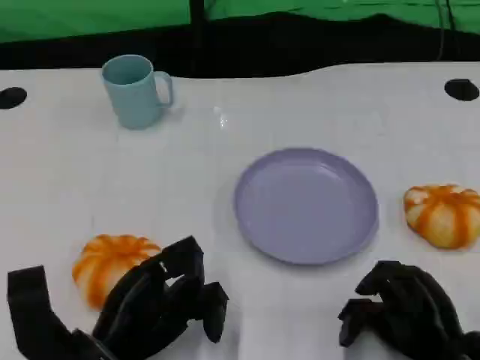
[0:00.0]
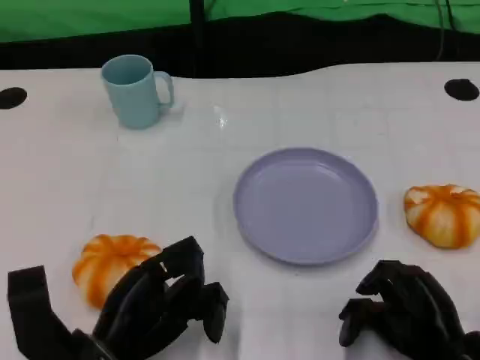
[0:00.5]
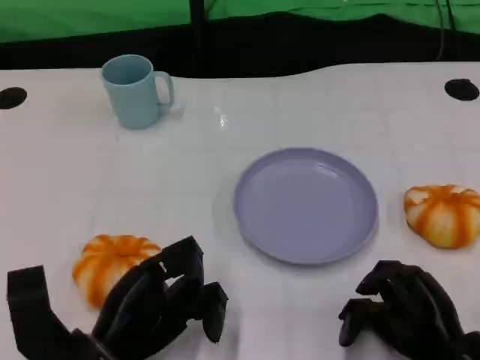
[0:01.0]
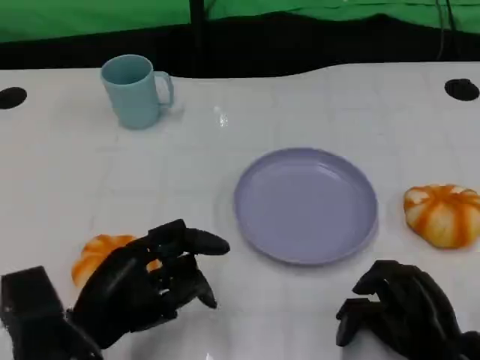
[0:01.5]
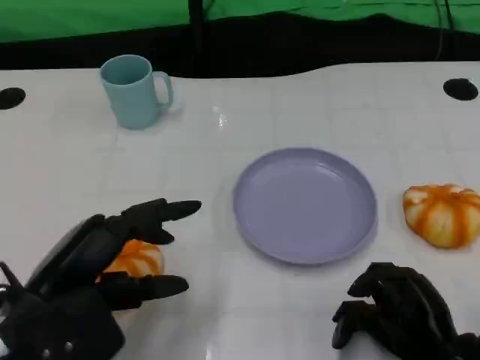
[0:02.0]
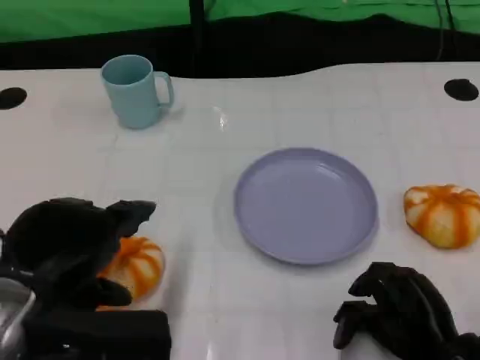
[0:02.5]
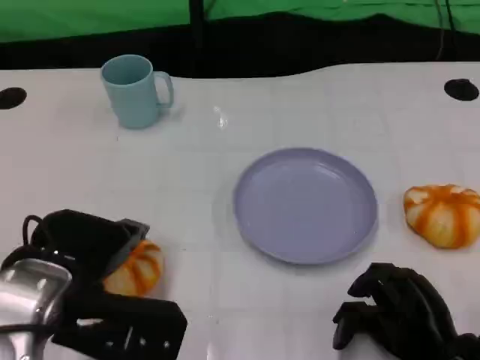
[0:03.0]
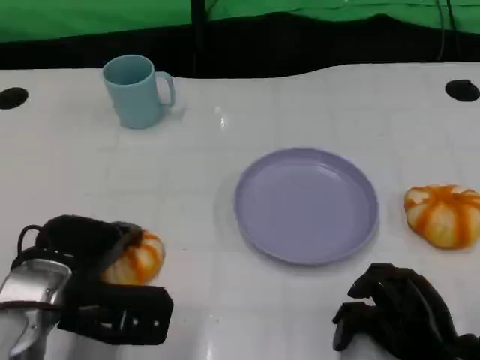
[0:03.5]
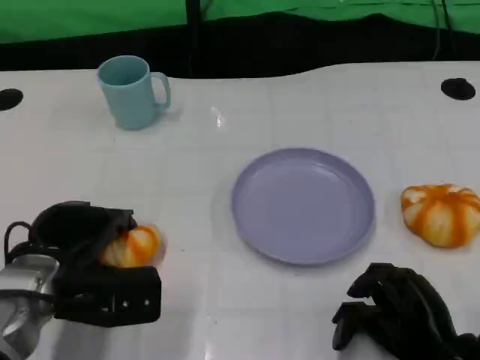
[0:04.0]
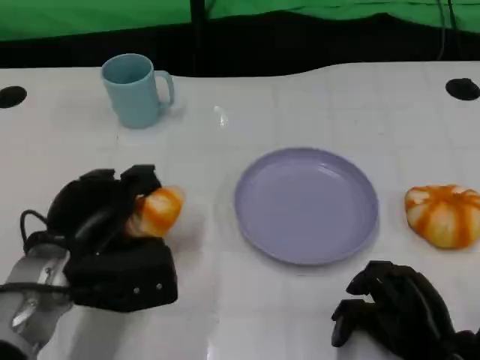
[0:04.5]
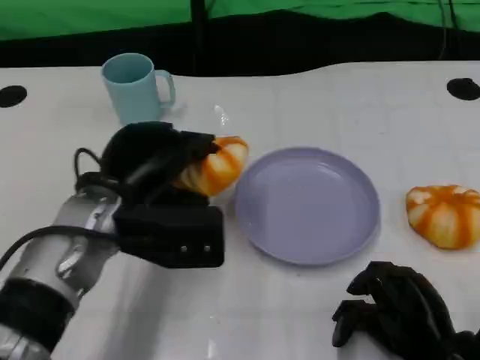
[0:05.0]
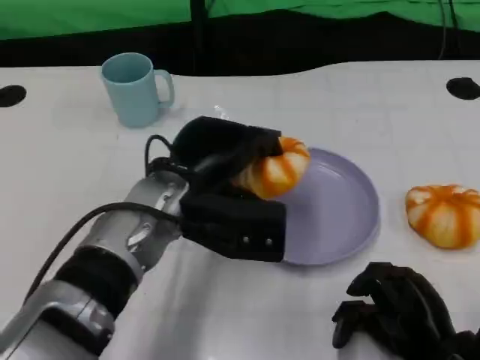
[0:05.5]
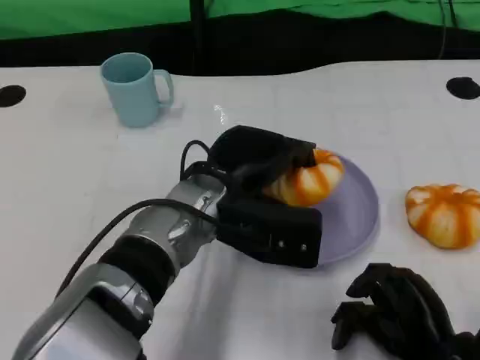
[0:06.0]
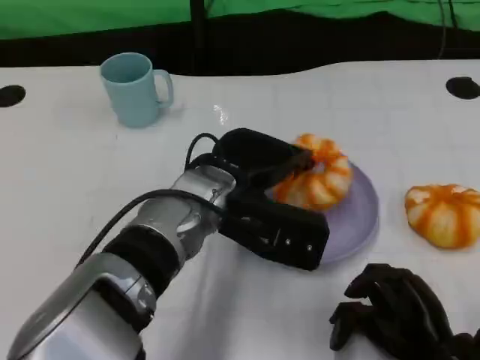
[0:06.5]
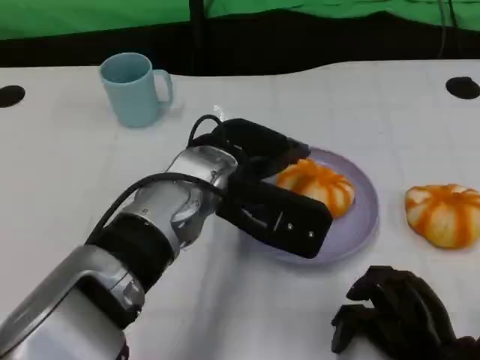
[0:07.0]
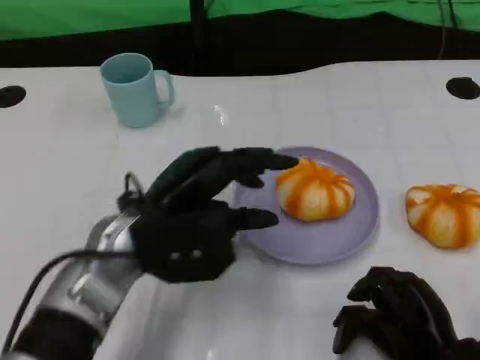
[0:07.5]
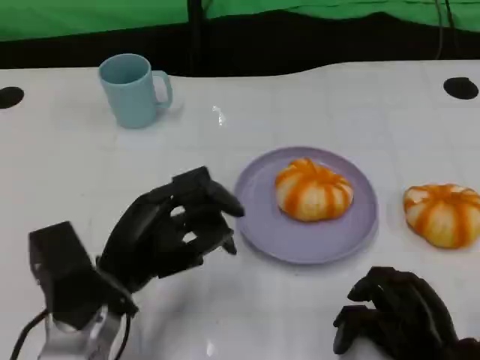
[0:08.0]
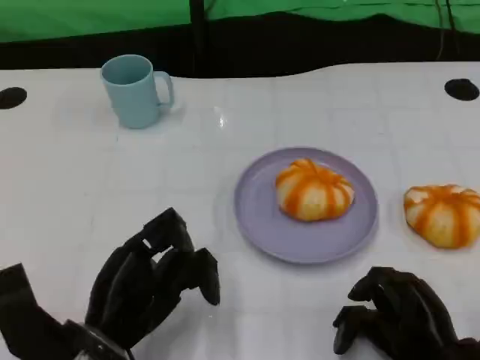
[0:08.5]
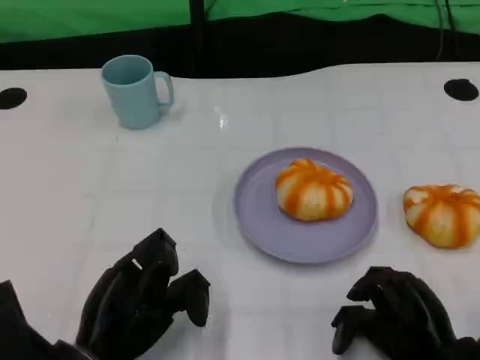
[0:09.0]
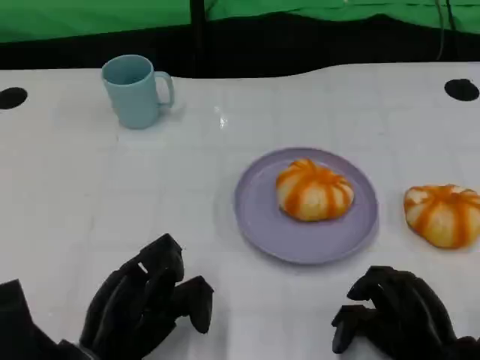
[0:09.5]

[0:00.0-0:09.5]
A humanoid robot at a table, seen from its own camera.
Task of the whole recording: Grasp the bread from the table and place it into the plate.
0.0 to 2.0 s: The left hand moves upward, approximately 10 cm.
2.0 to 4.0 s: The left hand travels forward and downward by about 10 cm.
4.0 to 5.5 s: The left hand is displaced to the right and upward by approximately 15 cm.
5.5 to 7.5 s: The left hand moves roughly 5 cm.
7.5 to 9.5 s: The left hand is displaced backward, downward and to the left by some 15 cm.

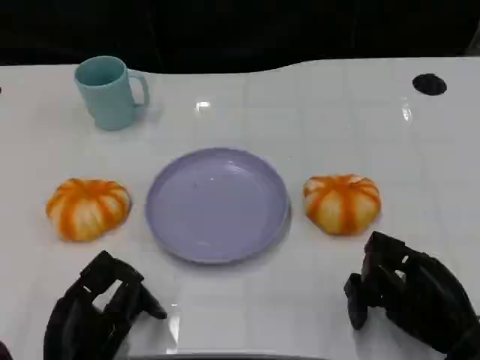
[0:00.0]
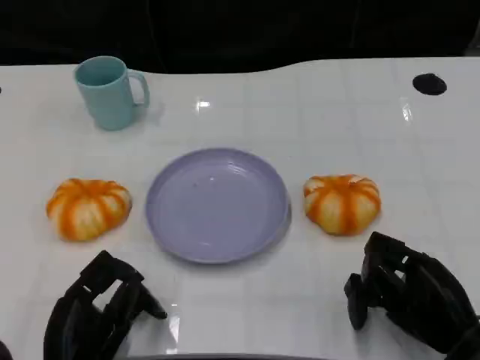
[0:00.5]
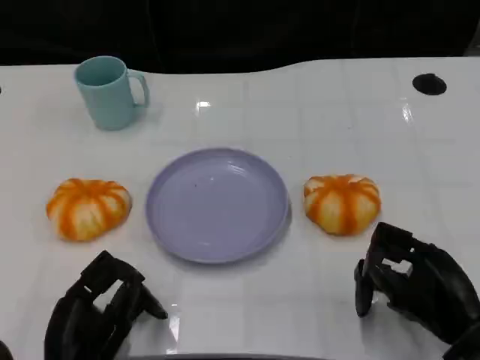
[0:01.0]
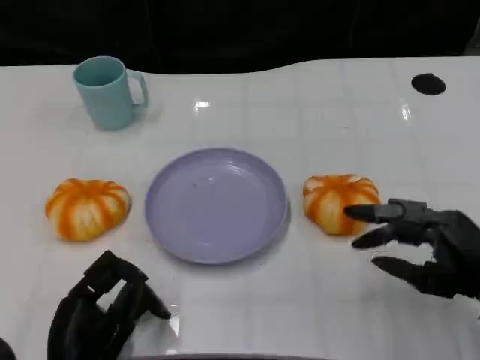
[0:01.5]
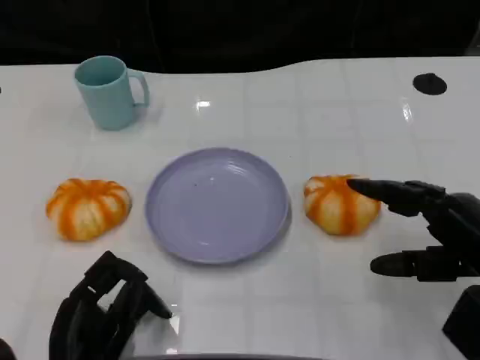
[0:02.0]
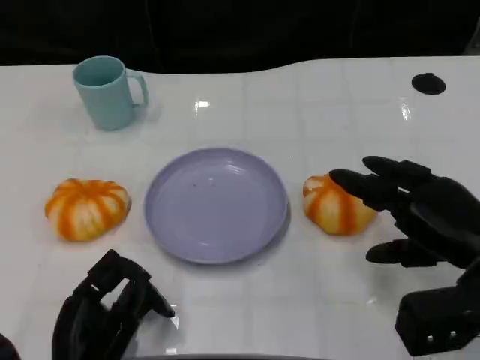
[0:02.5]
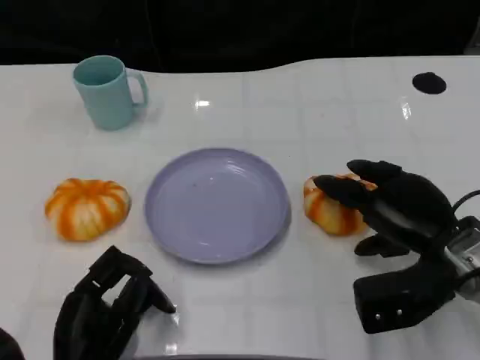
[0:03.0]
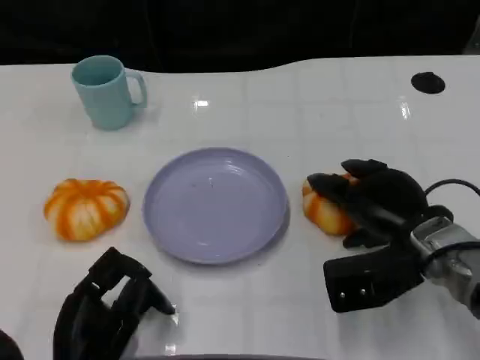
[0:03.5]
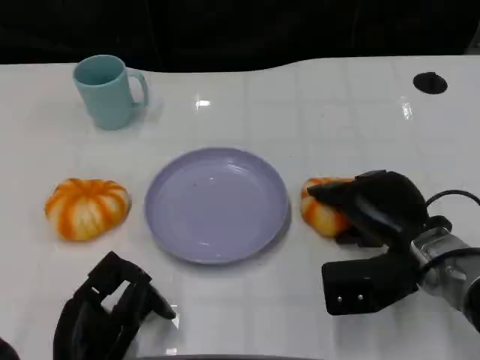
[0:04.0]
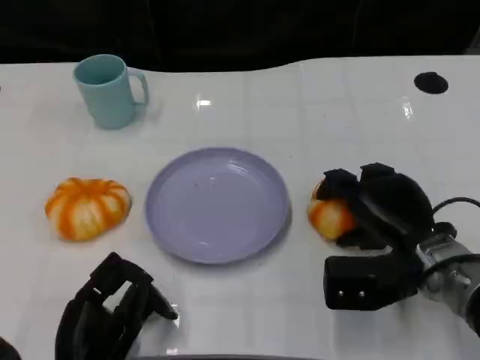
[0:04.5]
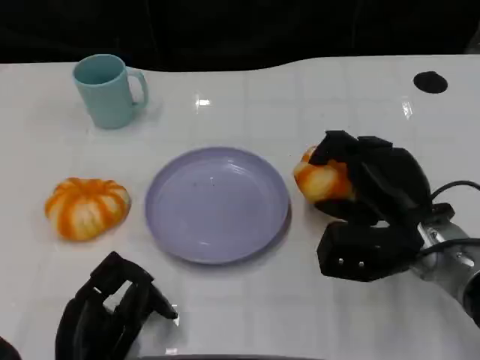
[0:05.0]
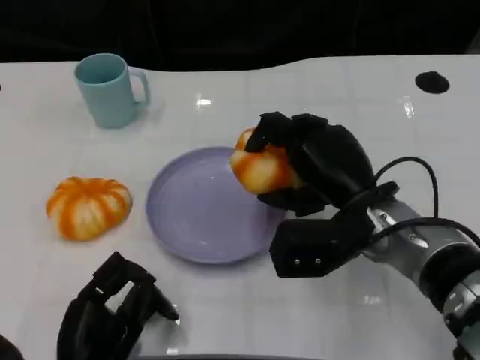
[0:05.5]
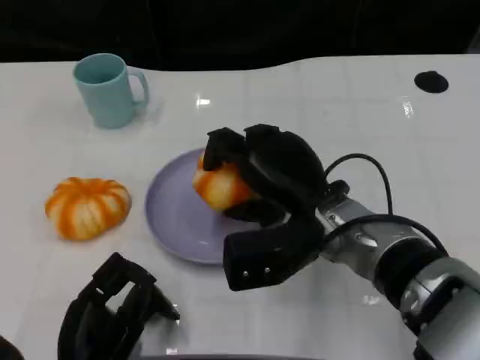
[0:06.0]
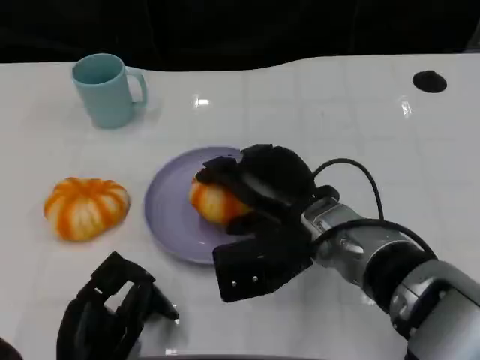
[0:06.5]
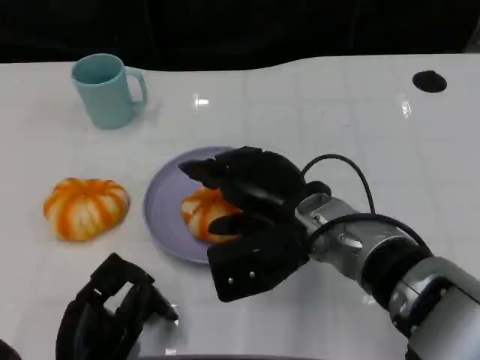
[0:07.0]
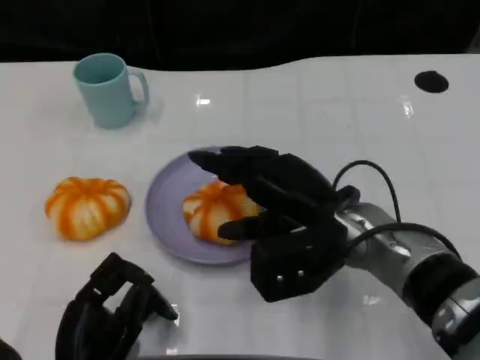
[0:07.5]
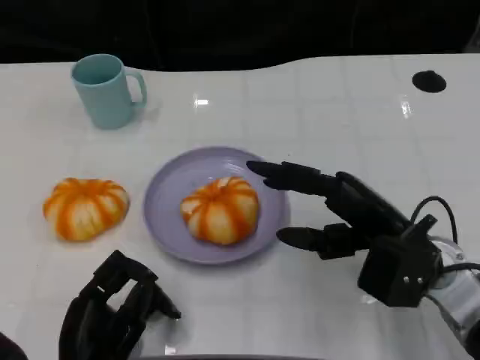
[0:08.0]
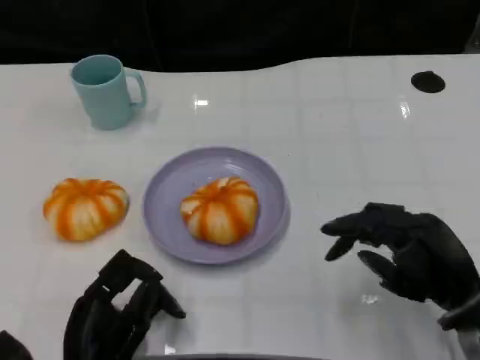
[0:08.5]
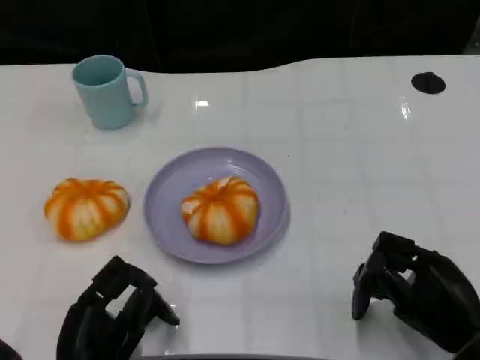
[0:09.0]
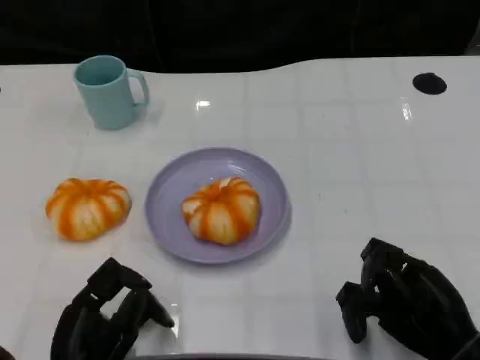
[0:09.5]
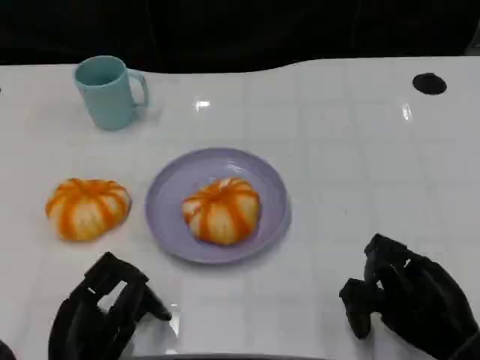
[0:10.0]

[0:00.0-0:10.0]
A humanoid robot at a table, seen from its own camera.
Task of the whole recording: Grasp the bread from the table and place it into the plate.
0.0 to 2.0 s: The right hand goes roughly 5 cm upward.
2.0 to 4.0 s: The right hand travels to the left and forward by some 10 cm.
4.0 to 6.0 s: The right hand moves to the left, about 10 cm.
6.0 to 8.0 s: The right hand travels to the right by about 10 cm.
8.0 to 10.0 s: The right hand moves backward, downward and to the right, some 10 cm.

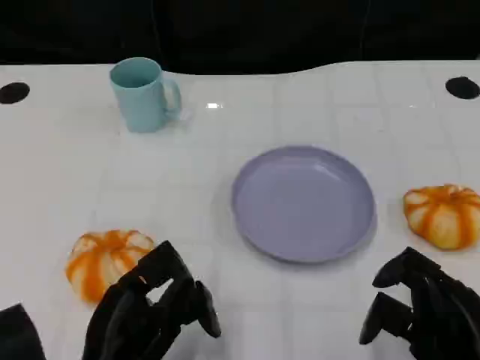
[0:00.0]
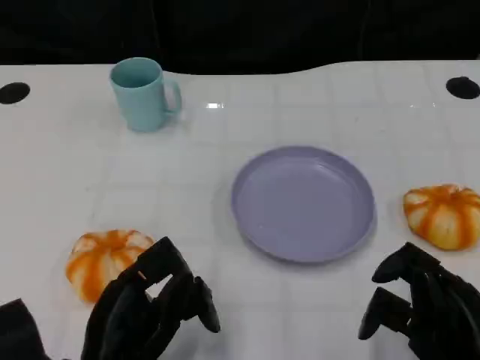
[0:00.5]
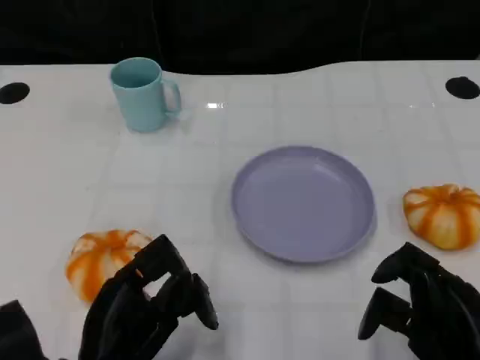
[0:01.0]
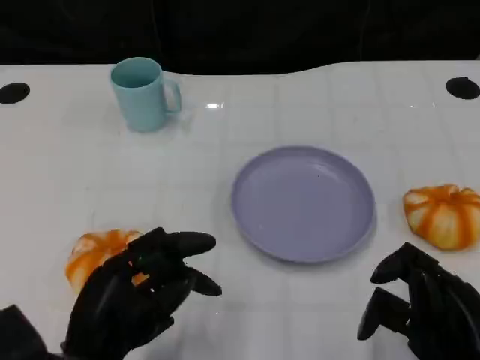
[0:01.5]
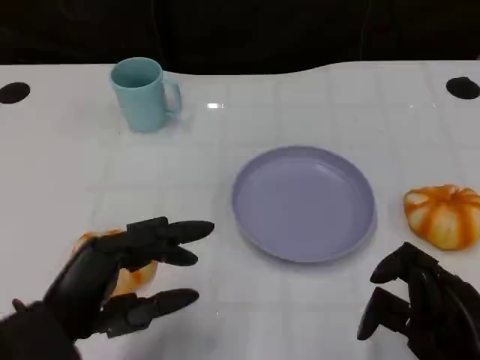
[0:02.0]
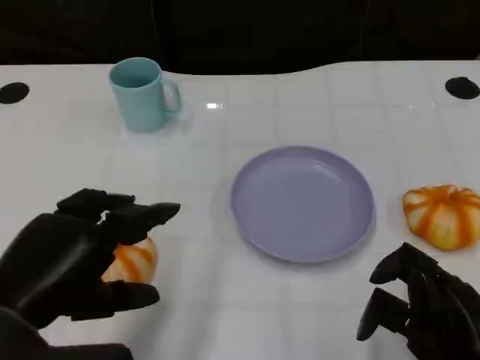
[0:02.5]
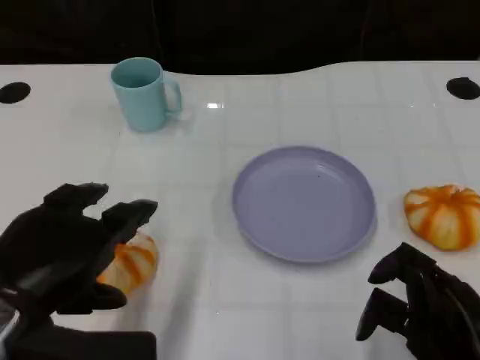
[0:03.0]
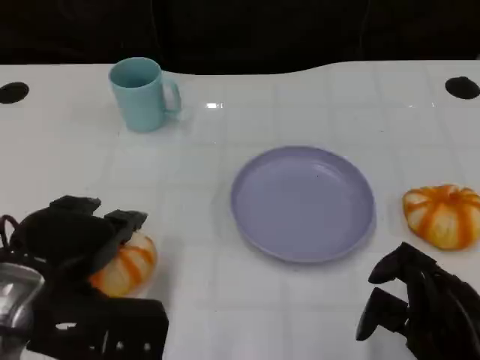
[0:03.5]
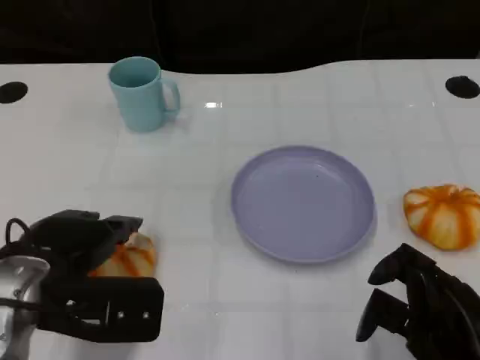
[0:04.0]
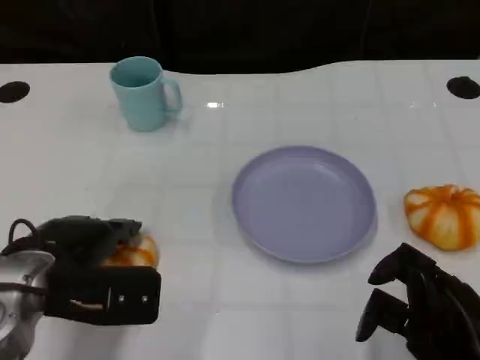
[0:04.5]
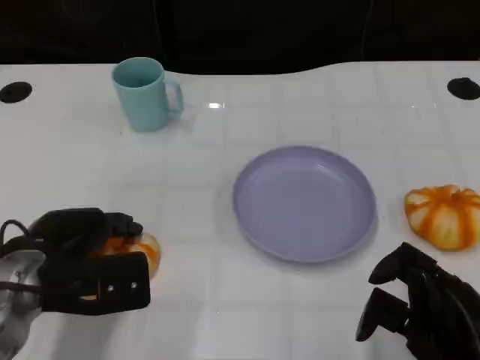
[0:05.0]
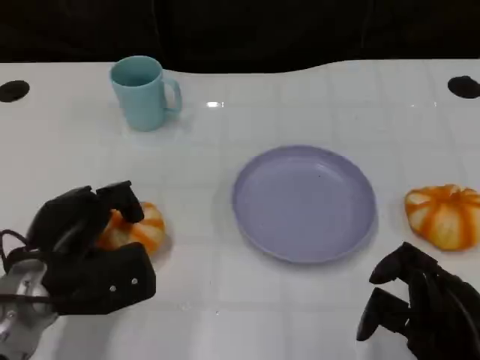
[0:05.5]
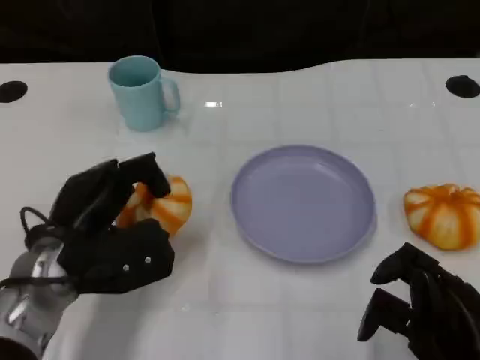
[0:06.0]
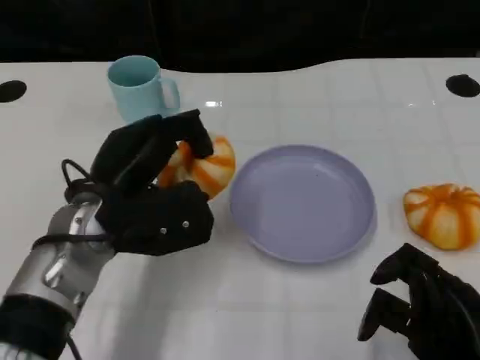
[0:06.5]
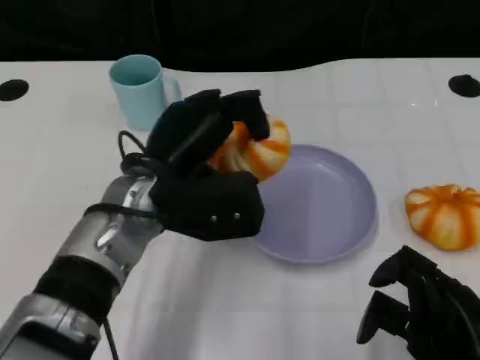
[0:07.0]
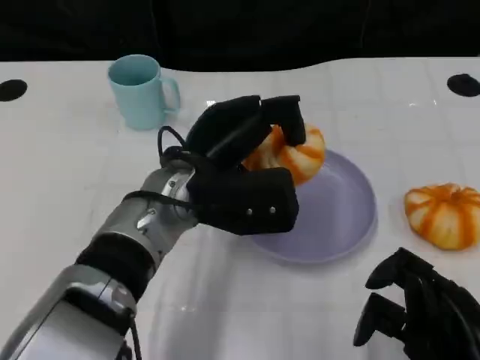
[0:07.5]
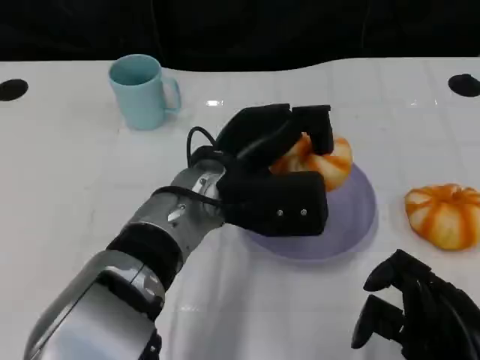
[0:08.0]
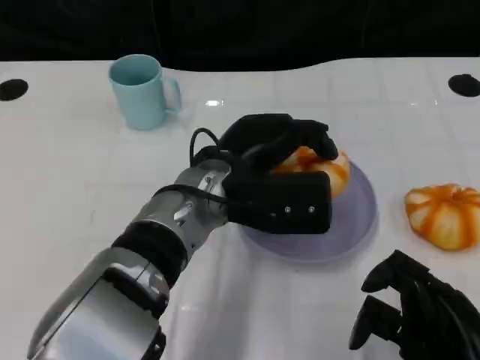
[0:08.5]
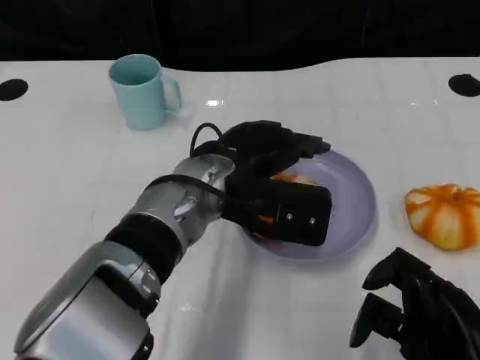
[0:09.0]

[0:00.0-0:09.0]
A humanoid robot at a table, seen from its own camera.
Task of the whole recording: Grasp the bread from the table and place it into the plate.
0.0 to 2.0 s: The left hand goes some 5 cm upward.
2.0 to 4.5 s: The left hand heads forward, covering roughly 10 cm.
4.5 to 7.0 s: The left hand moves to the right and forward, about 15 cm.
7.0 to 9.0 s: The left hand shifts approximately 5 cm to the right.
